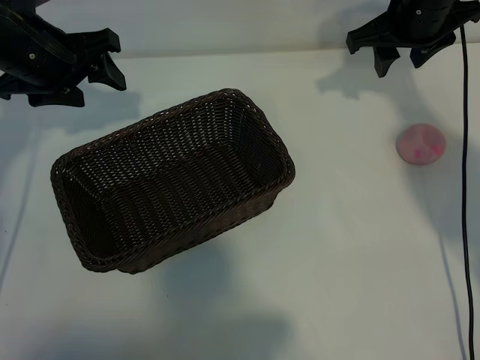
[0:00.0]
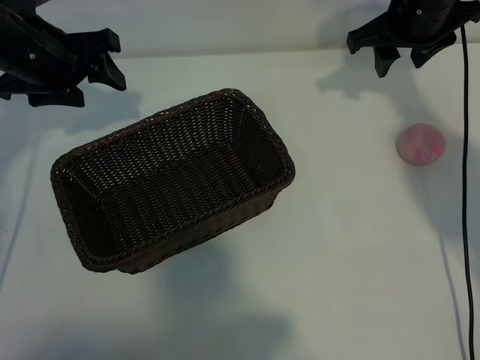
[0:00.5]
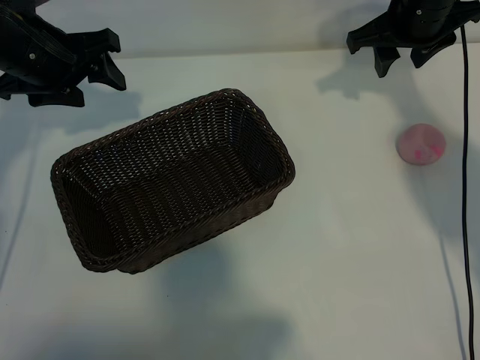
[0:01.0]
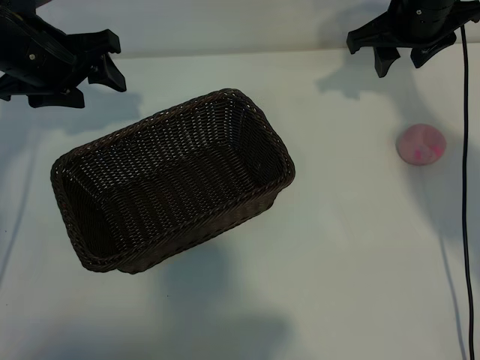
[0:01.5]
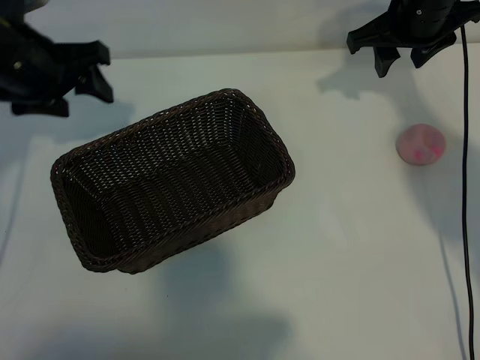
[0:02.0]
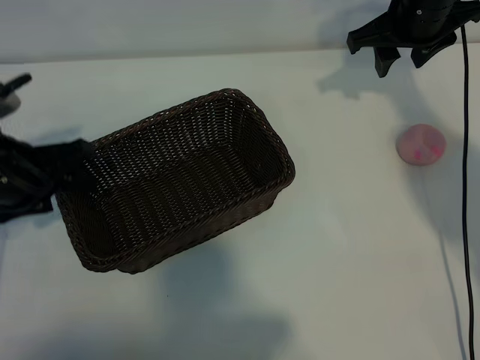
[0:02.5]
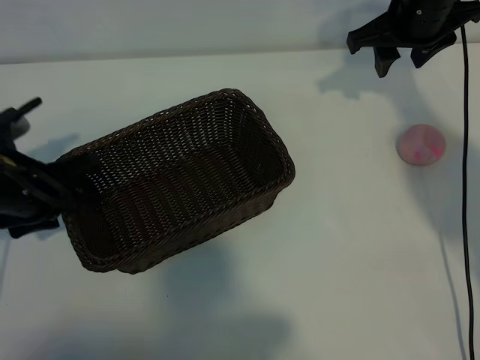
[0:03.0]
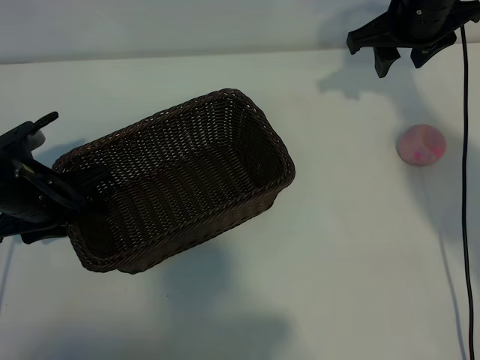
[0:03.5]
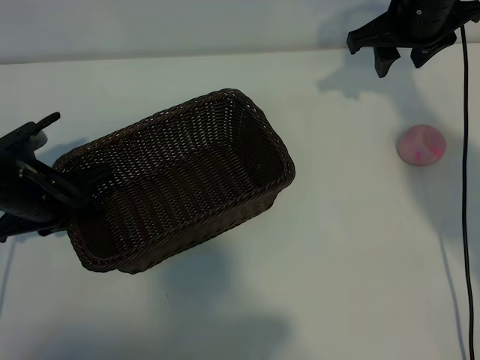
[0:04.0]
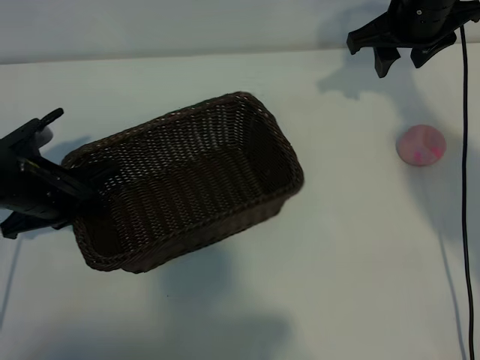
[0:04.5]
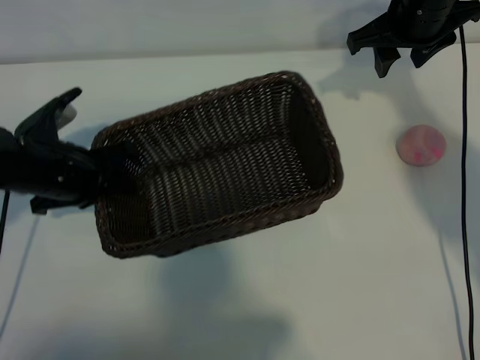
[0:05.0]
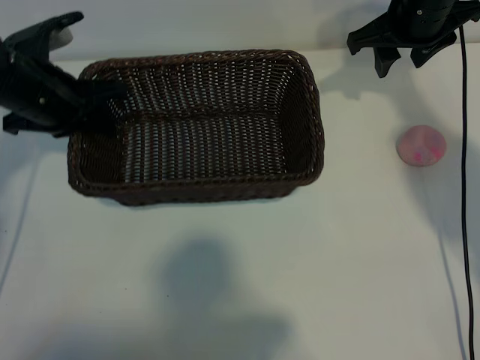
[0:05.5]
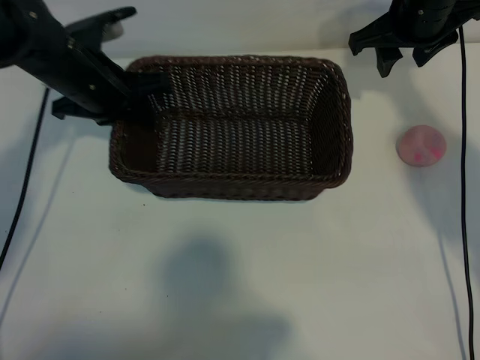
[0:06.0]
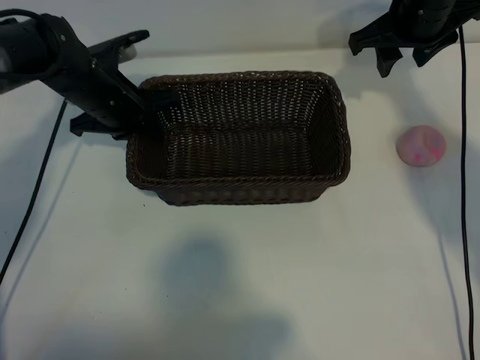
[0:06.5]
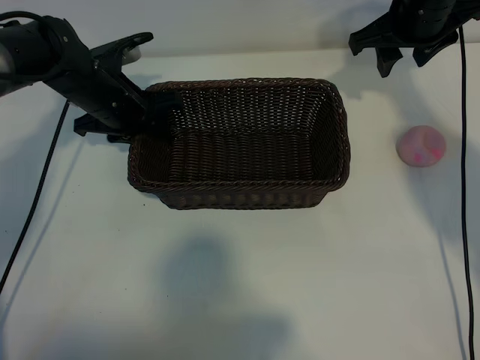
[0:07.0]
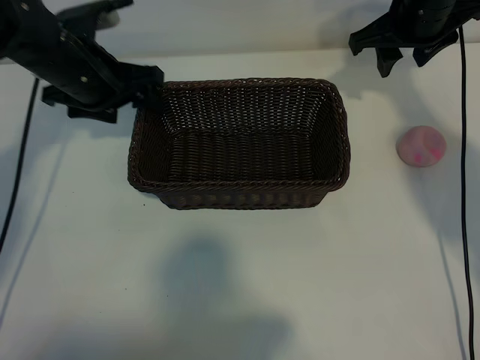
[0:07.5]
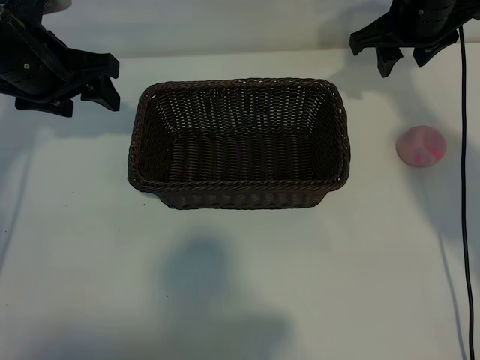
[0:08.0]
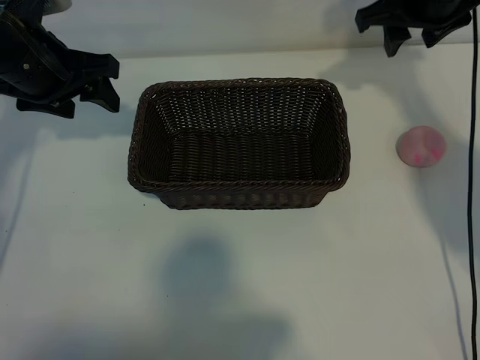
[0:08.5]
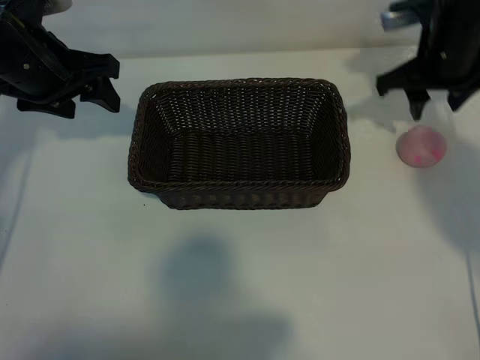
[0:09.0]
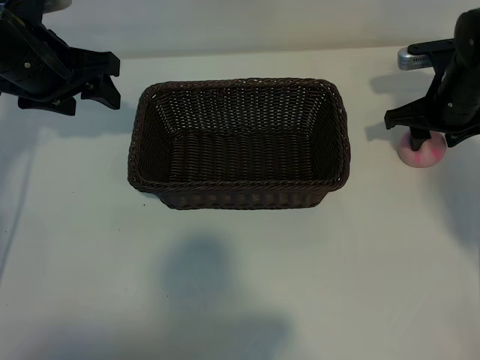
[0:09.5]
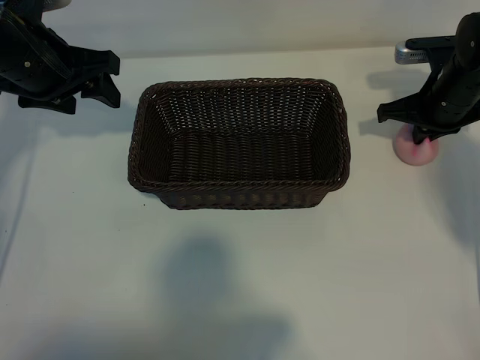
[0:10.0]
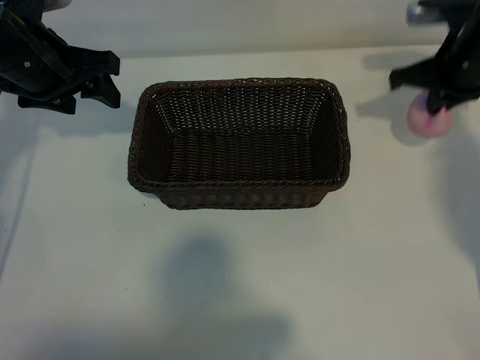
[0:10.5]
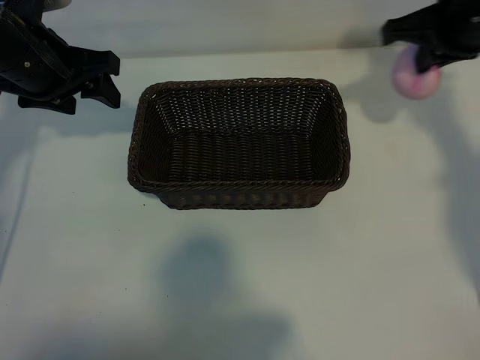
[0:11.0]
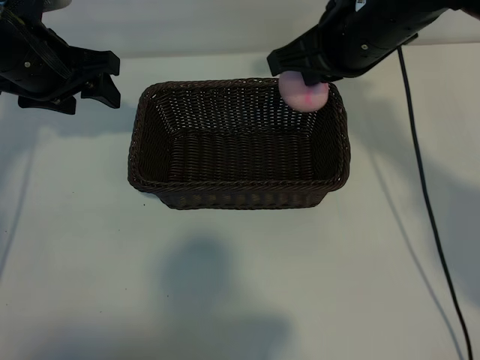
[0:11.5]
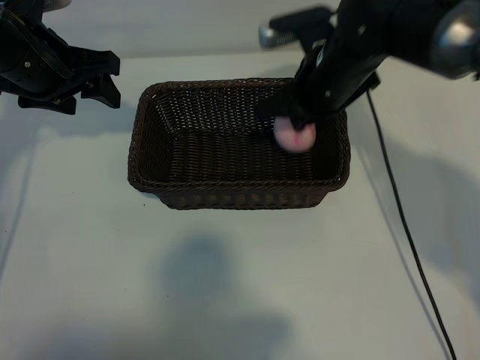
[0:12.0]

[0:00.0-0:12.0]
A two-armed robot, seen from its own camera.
Task of the whole recording: pick up the peach and put it into the basket.
Step, 0:02.0 to 0:04.0: Grasp the basket with left gripper.
Step, 0:04.5 to 0:07.0: Place the basket in the center of view with left gripper.
Step, 0:07.5 to 0:09.5: Grasp the peach with right gripper.
